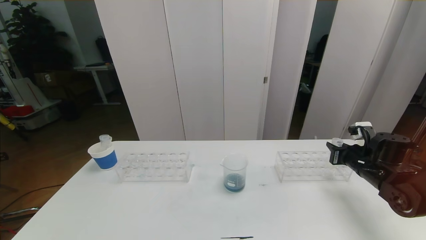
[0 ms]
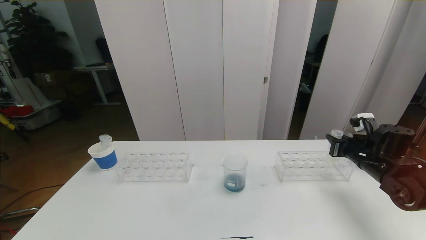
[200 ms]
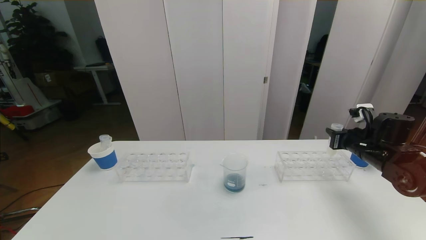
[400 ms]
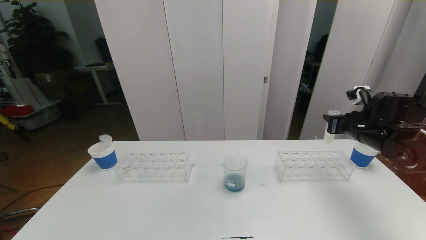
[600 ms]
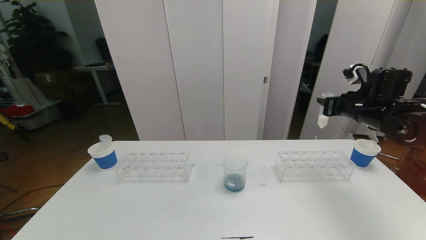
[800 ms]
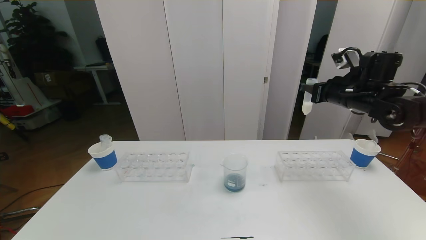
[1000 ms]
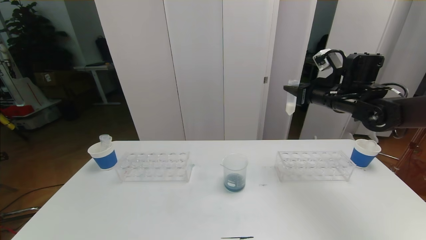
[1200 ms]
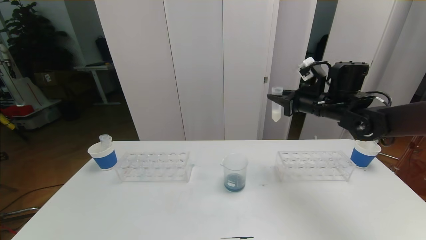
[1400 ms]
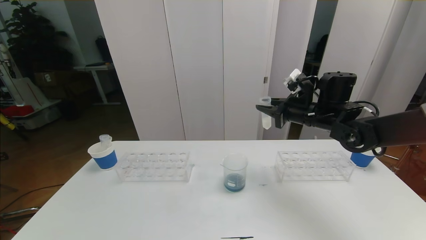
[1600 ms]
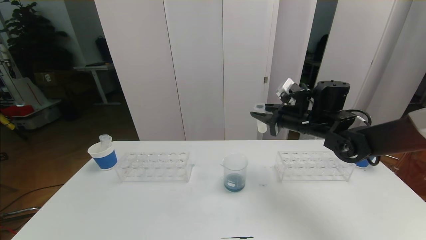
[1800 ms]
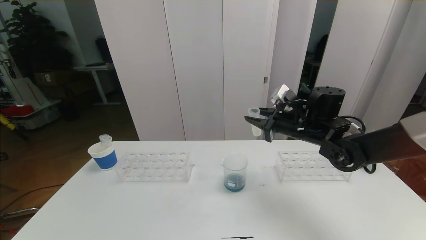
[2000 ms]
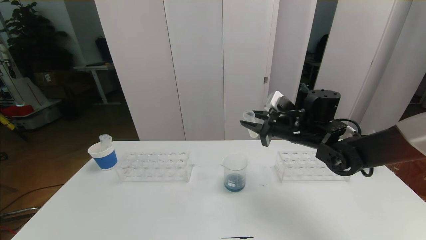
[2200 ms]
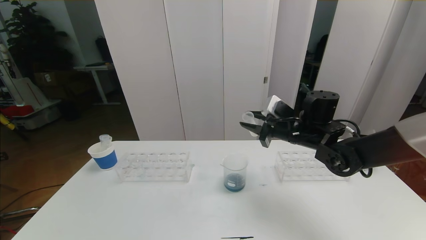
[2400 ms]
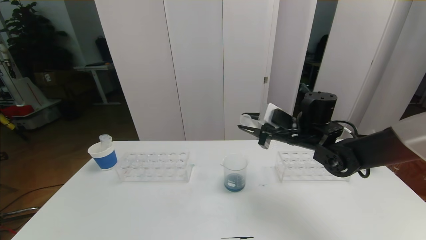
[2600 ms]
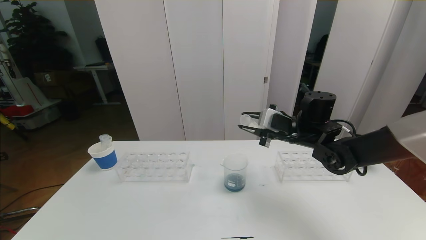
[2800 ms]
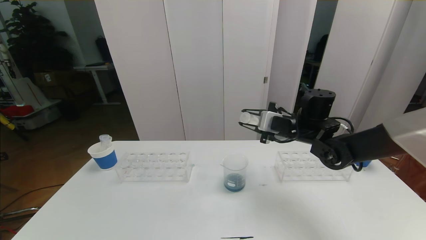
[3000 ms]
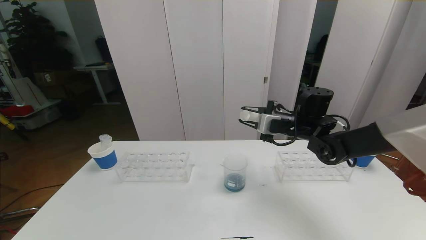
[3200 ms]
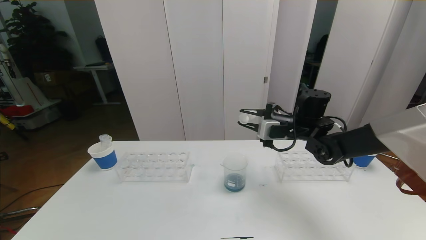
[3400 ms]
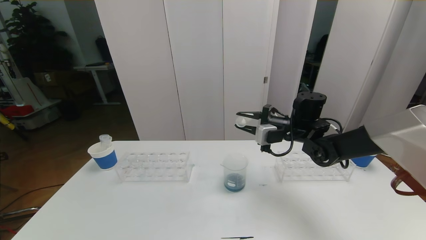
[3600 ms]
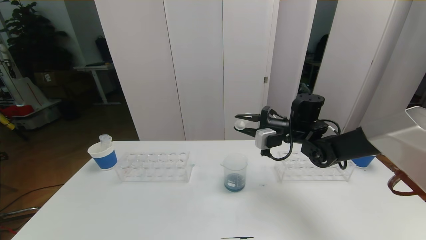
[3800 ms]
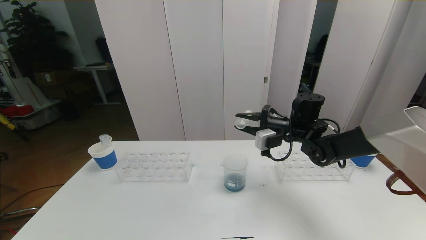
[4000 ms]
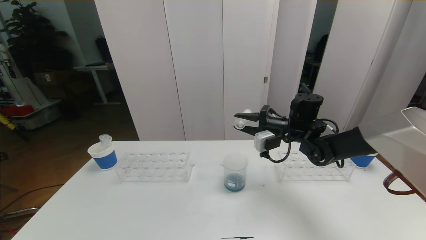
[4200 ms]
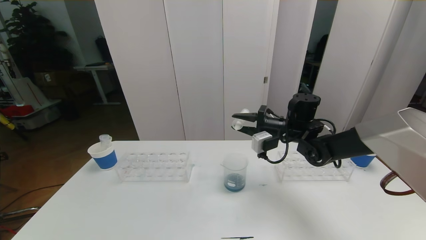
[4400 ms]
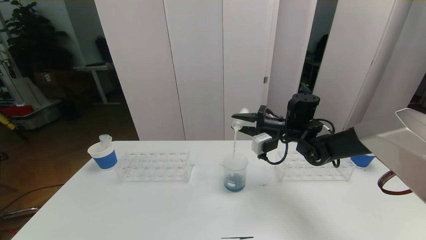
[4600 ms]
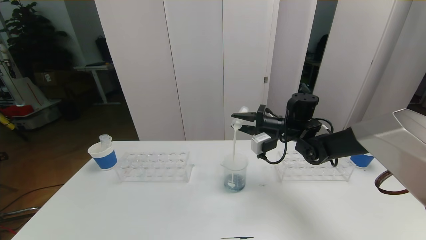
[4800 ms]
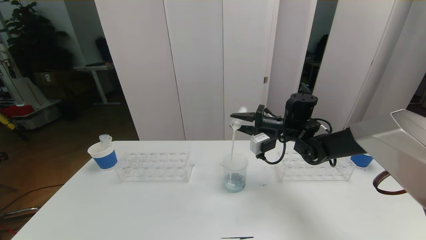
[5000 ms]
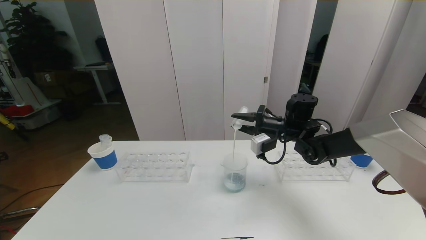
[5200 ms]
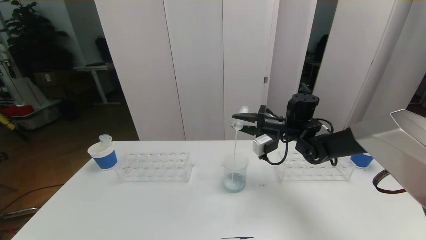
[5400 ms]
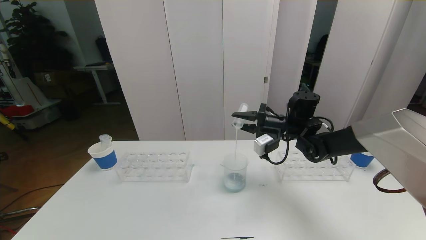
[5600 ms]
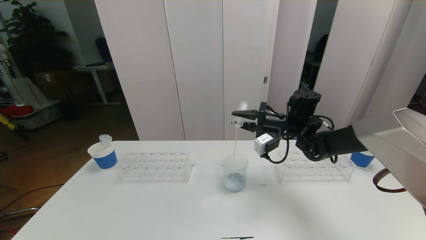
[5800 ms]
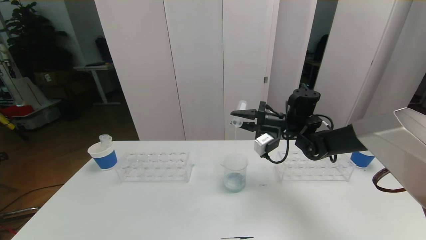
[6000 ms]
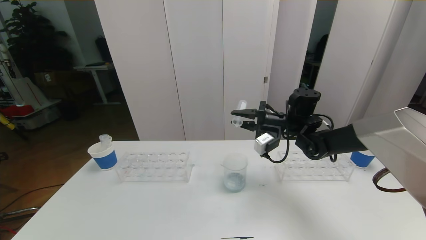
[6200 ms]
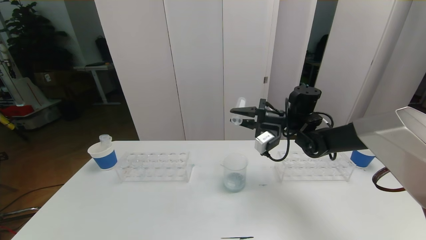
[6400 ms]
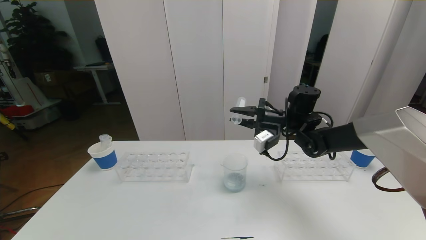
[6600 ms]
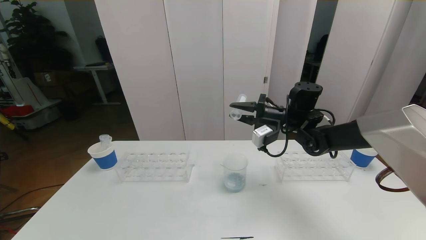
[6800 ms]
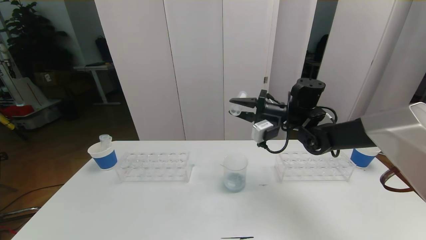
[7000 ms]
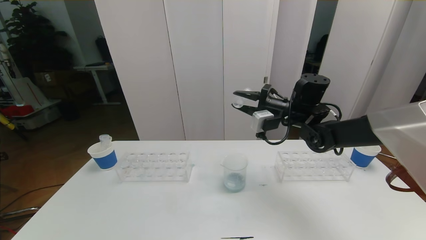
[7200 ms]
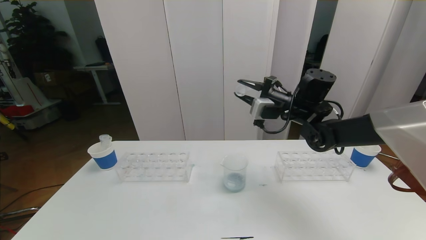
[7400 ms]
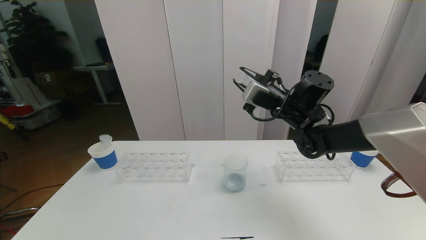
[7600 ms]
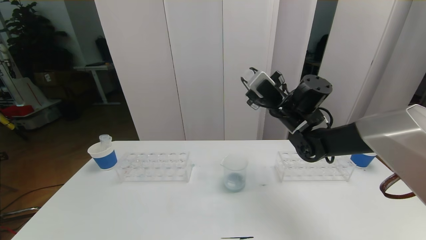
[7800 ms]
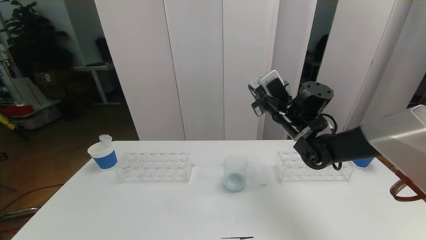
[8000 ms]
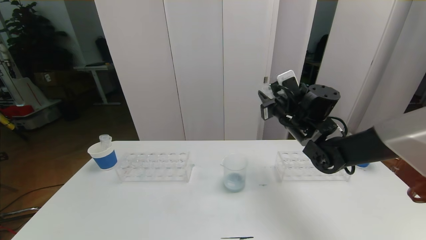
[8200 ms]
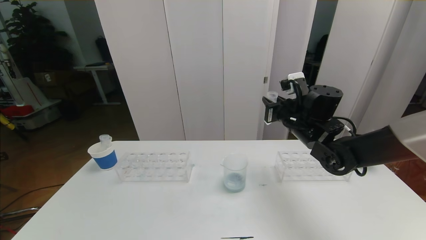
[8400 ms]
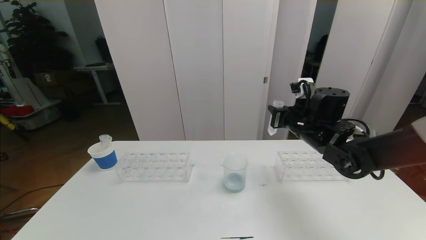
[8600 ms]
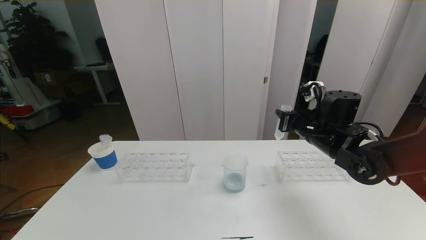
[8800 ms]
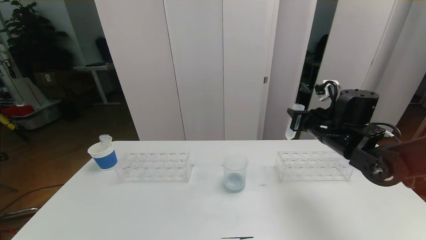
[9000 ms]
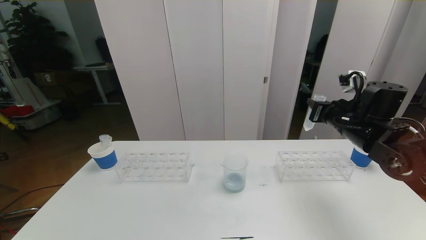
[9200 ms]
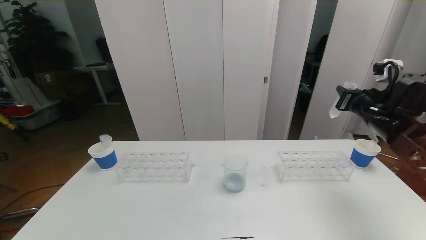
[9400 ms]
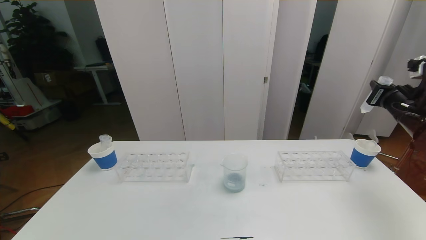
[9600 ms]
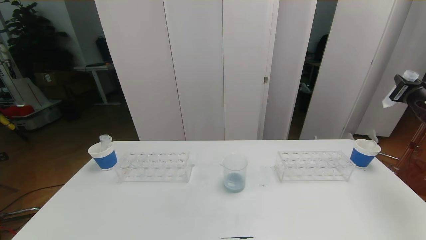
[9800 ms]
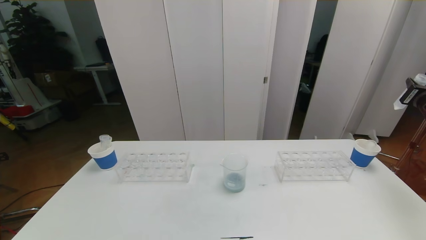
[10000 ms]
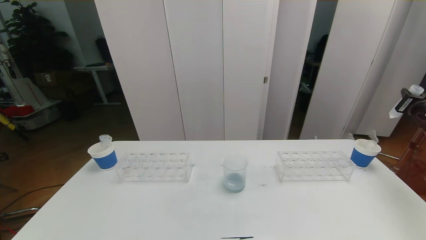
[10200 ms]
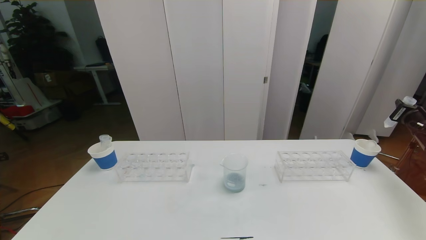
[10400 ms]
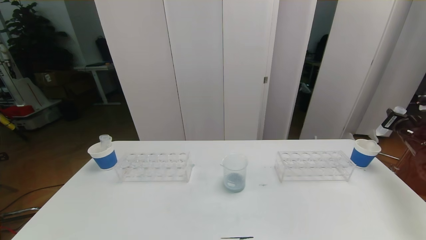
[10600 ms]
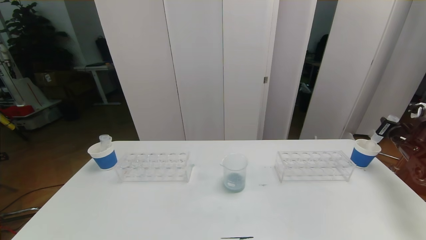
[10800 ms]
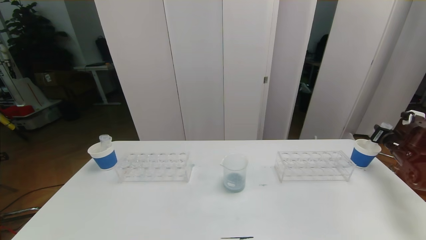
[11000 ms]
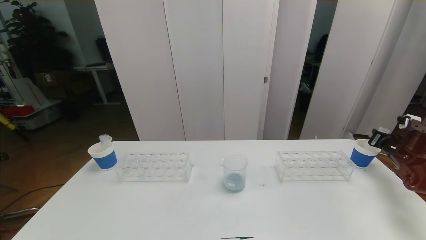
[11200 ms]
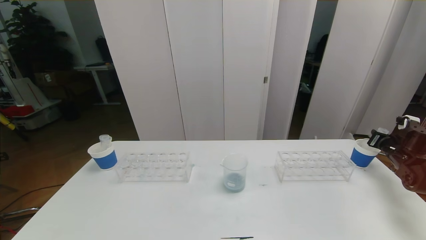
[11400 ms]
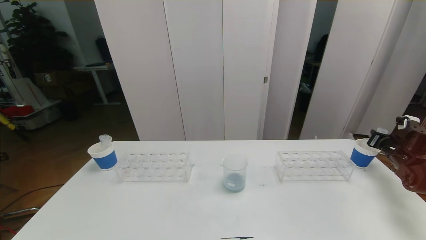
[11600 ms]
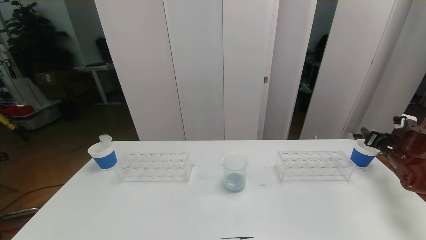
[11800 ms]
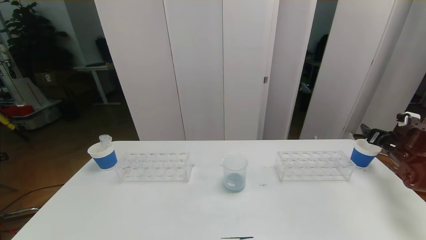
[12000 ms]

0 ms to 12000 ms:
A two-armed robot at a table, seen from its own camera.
Task of the whole recording: pick up the test tube with red pigment the test tube with blue pigment and the test tube with white pigment by grippers and pour them into the beaker.
0 ms to 1600 ms: The right gripper travels to the left, upward and forward by about 20 cm.
4400 ms to 6000 ms: The grippers move only a little.
6000 ms to 7600 ms: The right gripper travels upward by approximately 5 cm.
7600 ms to 9000 ms: The right gripper is displaced to the right and backward by about 10 cm.
9000 ms to 10400 ms: The right gripper moves to the right, about 25 cm.
10400 ms to 12000 ms: The right gripper goes about 10 cm downward, and opens its fingers.

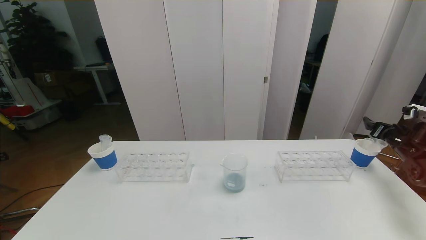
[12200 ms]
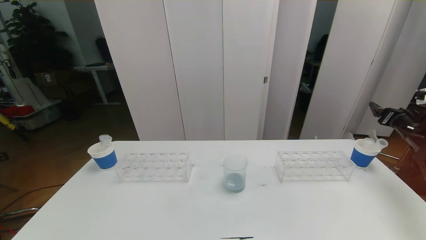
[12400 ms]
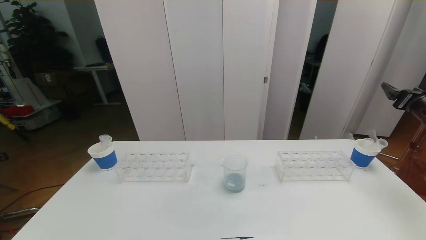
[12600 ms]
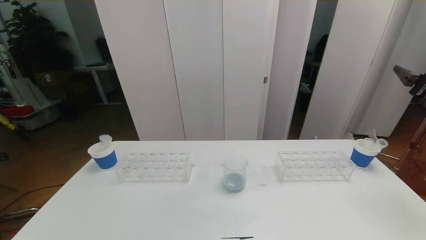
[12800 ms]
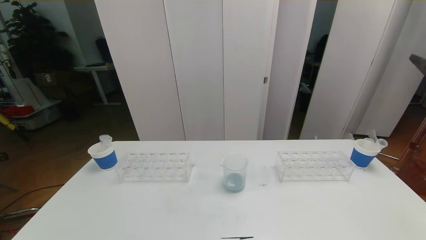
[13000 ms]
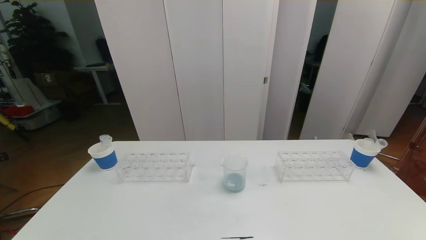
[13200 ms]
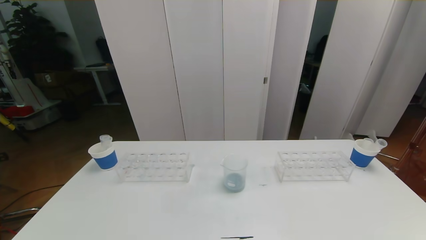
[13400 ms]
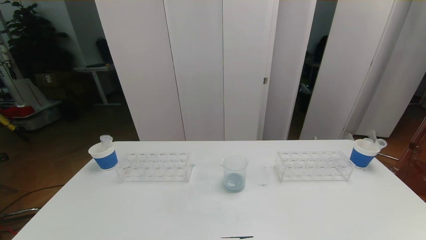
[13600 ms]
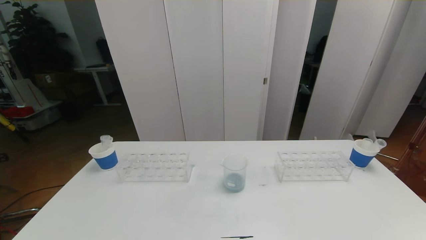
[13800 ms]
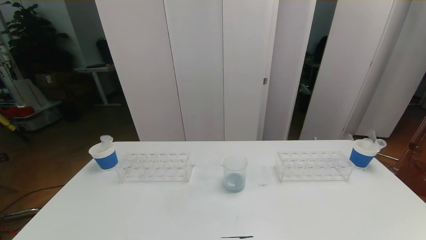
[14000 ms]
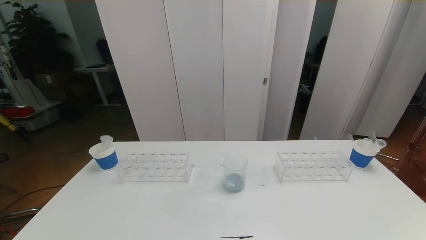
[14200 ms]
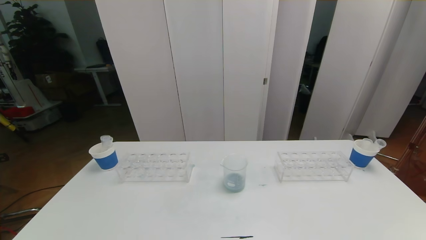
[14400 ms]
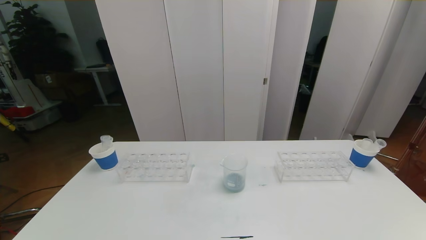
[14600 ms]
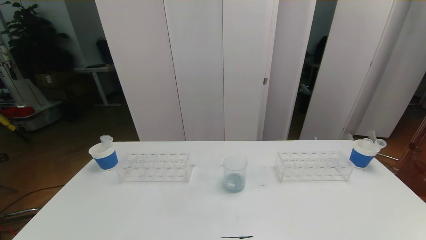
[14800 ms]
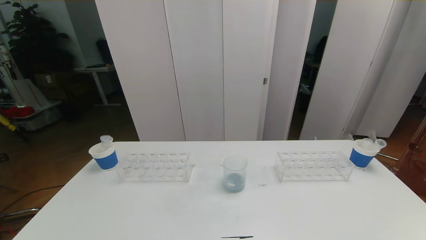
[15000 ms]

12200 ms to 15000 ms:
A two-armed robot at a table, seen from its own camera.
Task of the whole recording: pick up the test tube with red pigment the test tube with blue pigment and the test tube with white pigment by grippers and pour them into the beaker.
Step, 12200 ms to 15000 ms: Pour the white reagent into the graduated cylinder and place the test tube into the paper cup.
12200 ms to 13600 ms: The right gripper shifts roughly 40 cm backward, upward and to the left.

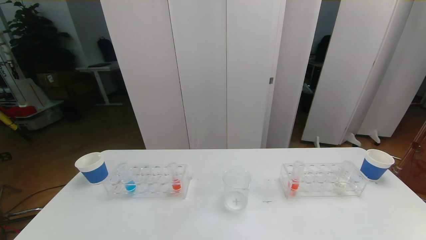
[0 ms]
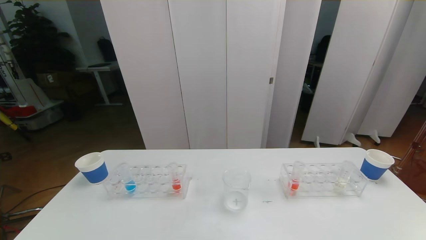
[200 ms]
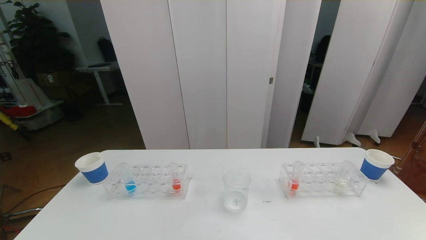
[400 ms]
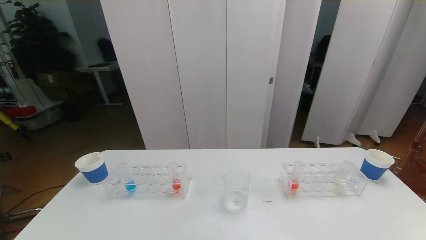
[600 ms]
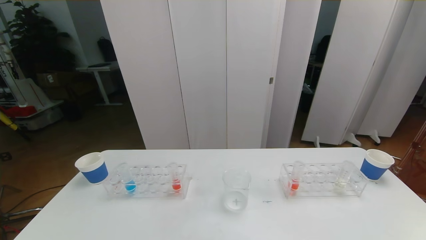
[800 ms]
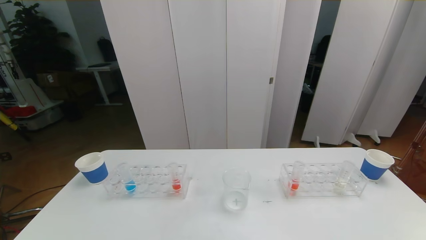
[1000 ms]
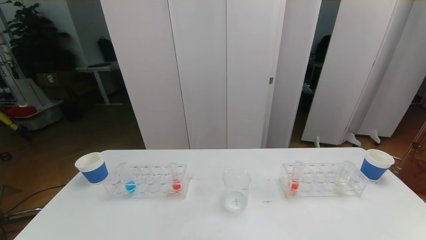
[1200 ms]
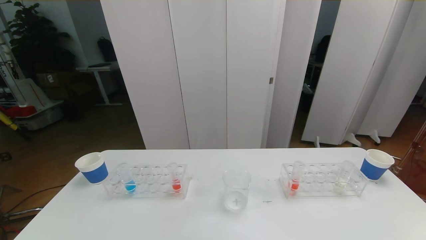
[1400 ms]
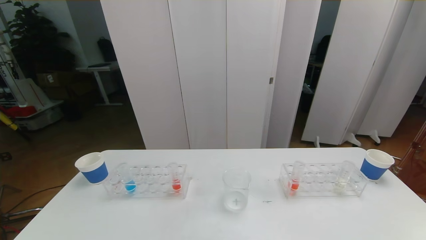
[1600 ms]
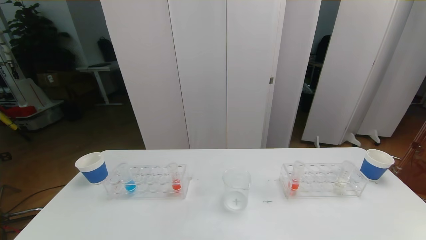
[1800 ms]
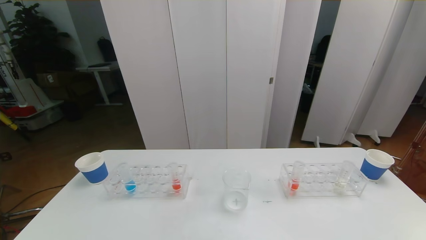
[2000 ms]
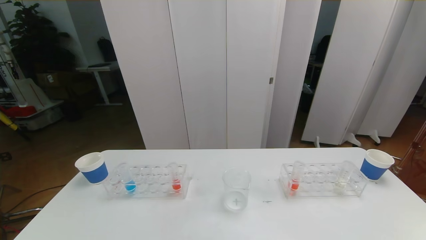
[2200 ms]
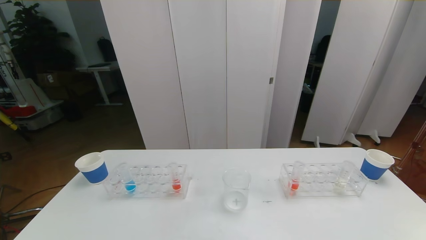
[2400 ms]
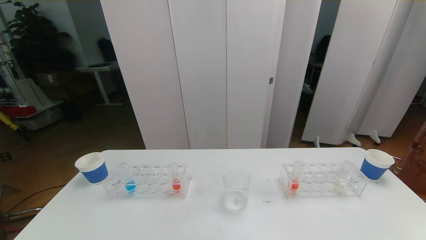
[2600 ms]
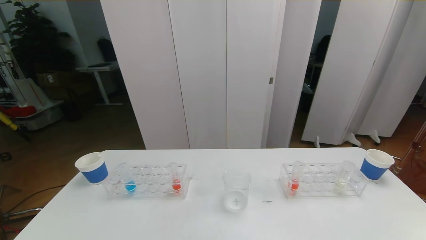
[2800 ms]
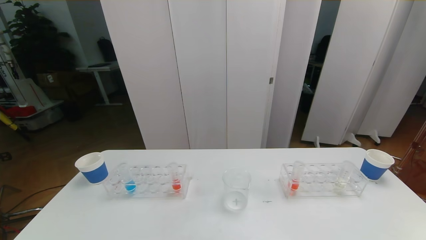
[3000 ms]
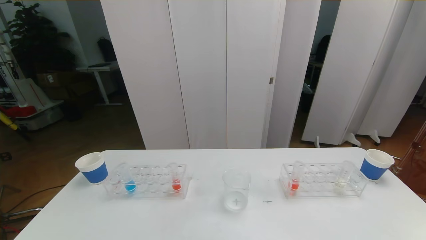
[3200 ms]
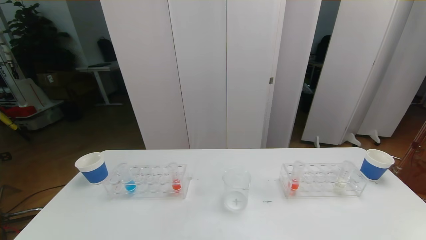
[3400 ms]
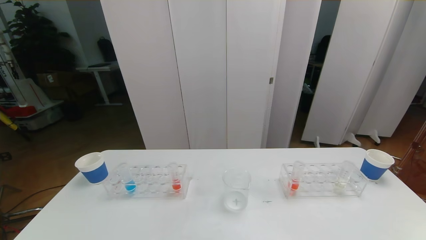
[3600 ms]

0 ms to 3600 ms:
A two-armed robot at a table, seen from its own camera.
Task of the whole recording: pick up the test tube with red pigment the test tube with blue pigment and the test tube with white pigment by grippers and pour them into the beaker.
0 ms to 3600 ms: Both grippers stay about where they are.
